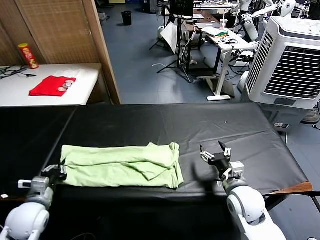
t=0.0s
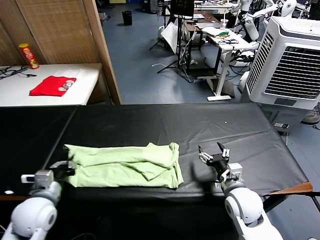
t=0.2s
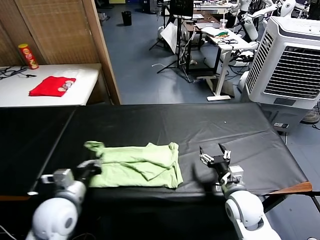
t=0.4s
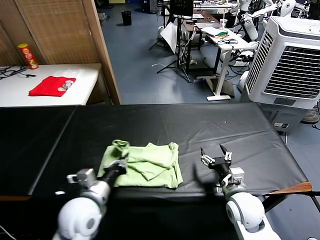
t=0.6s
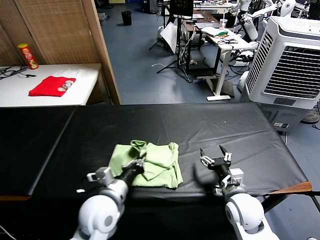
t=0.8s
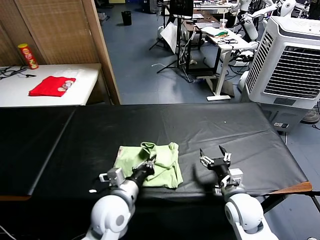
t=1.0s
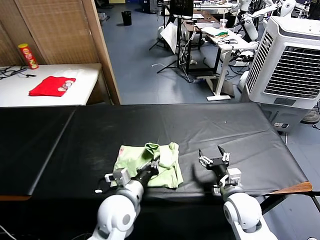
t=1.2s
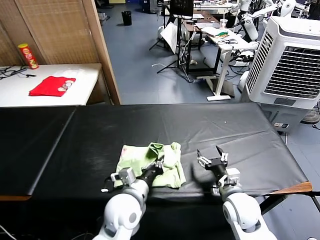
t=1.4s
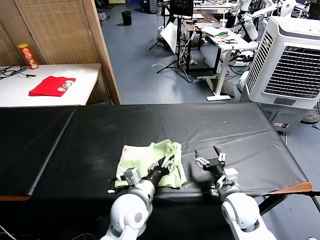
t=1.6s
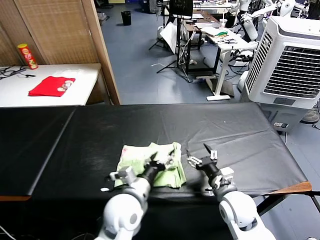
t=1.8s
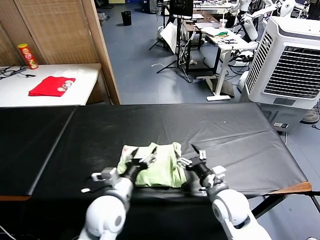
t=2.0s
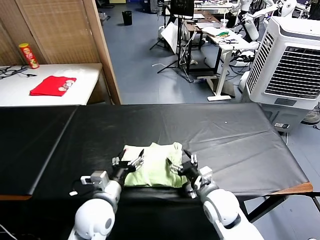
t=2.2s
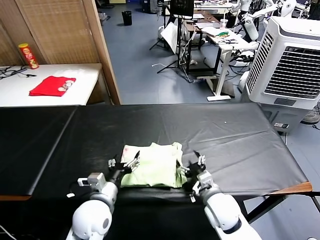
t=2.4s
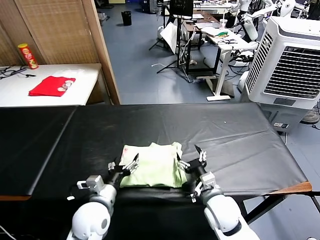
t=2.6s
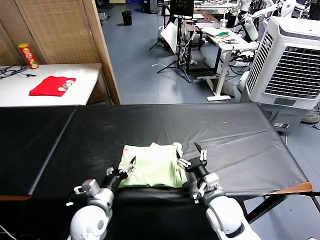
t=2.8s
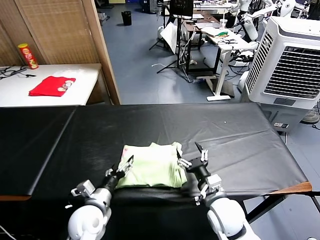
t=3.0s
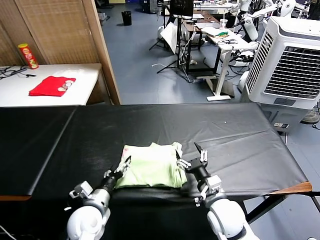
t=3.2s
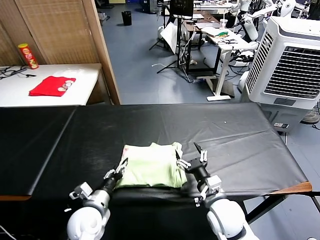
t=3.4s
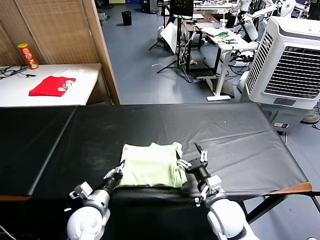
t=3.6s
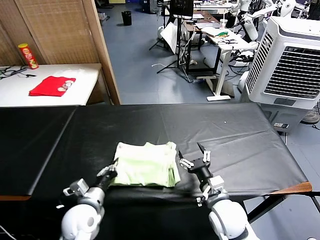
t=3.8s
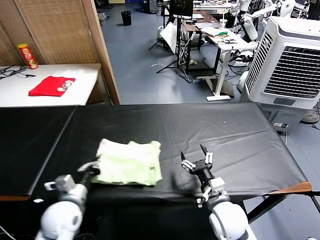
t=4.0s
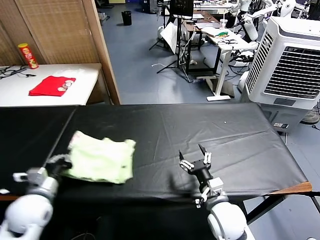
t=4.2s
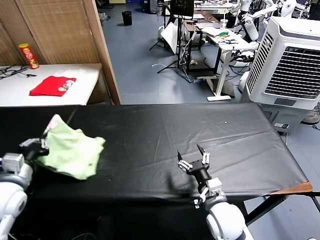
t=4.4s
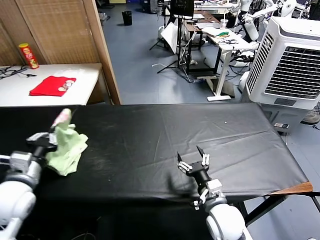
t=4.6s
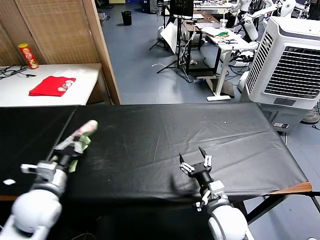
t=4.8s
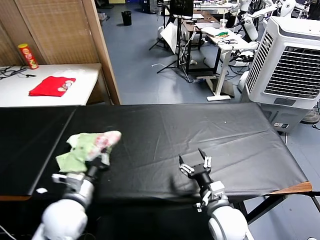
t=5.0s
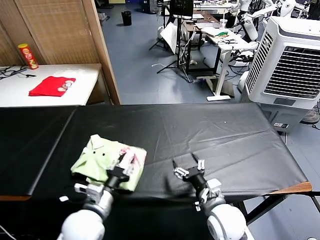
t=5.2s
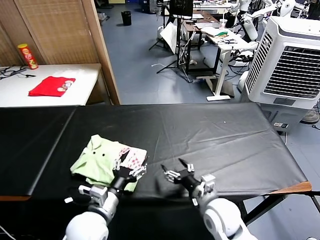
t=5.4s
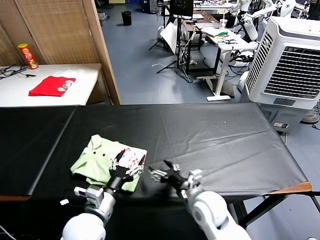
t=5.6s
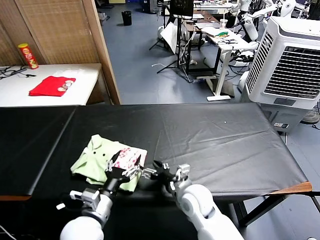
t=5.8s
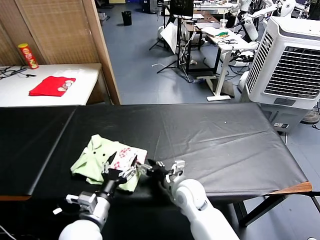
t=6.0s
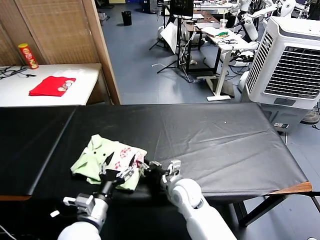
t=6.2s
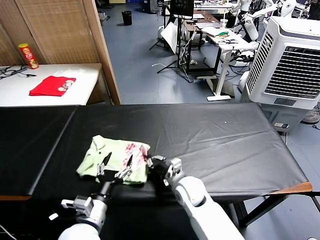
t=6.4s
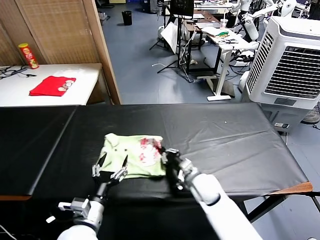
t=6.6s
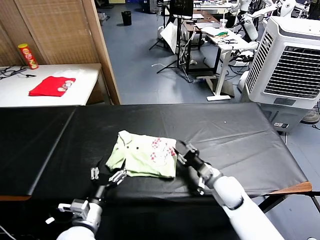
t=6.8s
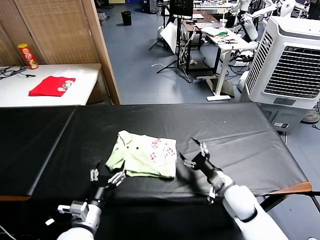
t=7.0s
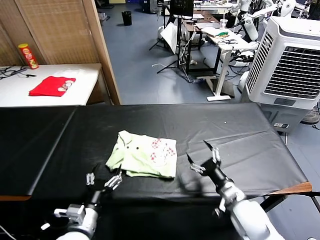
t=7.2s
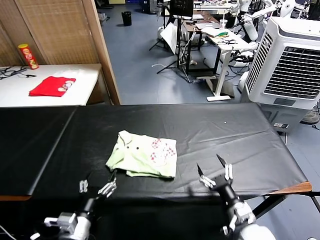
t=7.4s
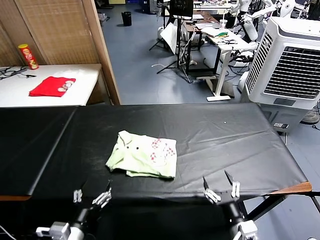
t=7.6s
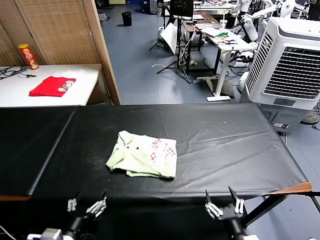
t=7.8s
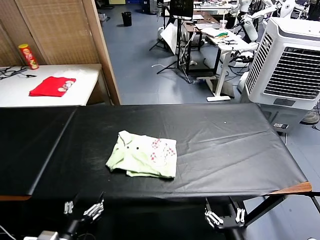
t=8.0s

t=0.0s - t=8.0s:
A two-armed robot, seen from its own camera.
Task of the whole recording: fold and organize the clothes.
Step, t=0.0s - t=1.6s: use the left gripper to drag the left edge of the fabric to the left and folds it over the right edge.
Step, t=2.0s - t=5.2s: Flip the folded clothes over with left gripper.
Step, t=5.4s - t=6.8s: Drag the clothes to the center of the table.
t=0.0s - t=1.6s: The left gripper shifts roughly 30 cm to the right, and opens.
t=1.6s - t=3.2s: The right gripper shifts roughly 5 cm to the left. Meanwhile the left gripper is displaced to the left and downward by roughly 15 cm, and opens.
t=3.2s - t=4.8s: The left gripper shifts about 15 cm upward and to the left, and closes its fingers.
t=4.8s - t=6.4s: The left gripper is displaced to the right, downward and backward by some 15 cm, and opens. The right gripper shifts approximately 15 cm forward and to the left, and closes up.
t=6.4s - t=8.0s: The right gripper goes about 30 cm backward and to the right, and opens up, while the left gripper goes some 10 cm backward and to the left.

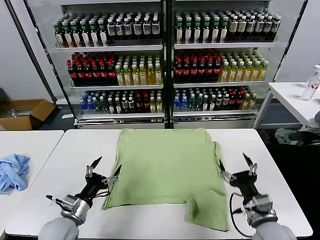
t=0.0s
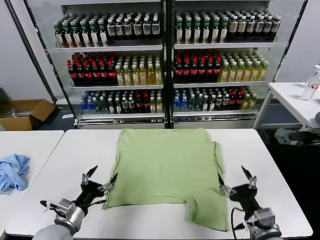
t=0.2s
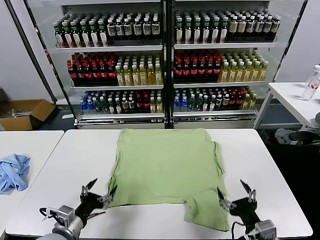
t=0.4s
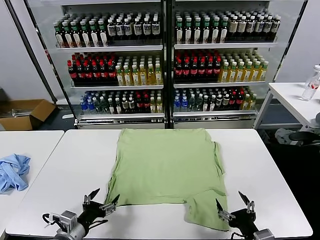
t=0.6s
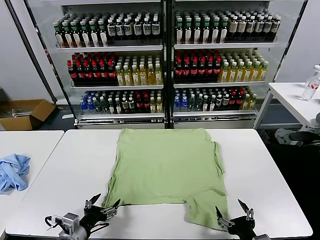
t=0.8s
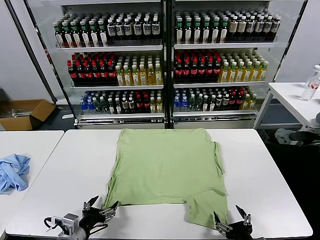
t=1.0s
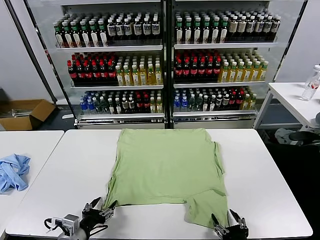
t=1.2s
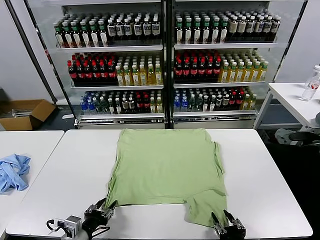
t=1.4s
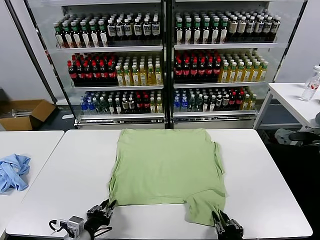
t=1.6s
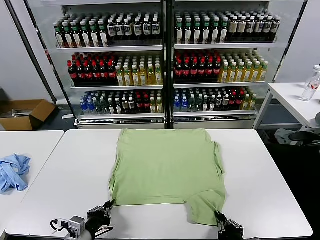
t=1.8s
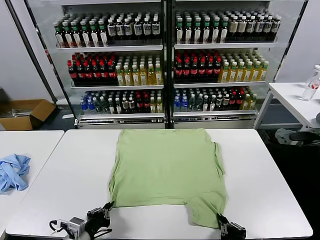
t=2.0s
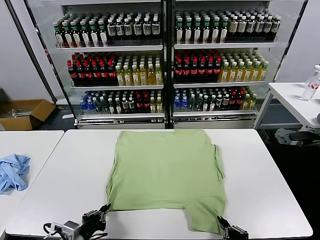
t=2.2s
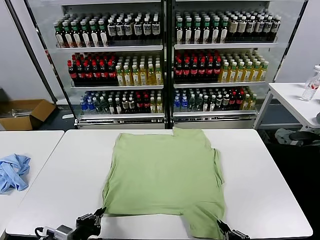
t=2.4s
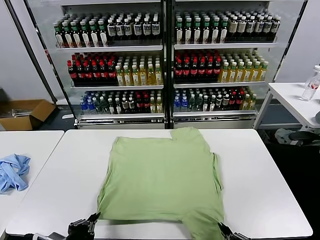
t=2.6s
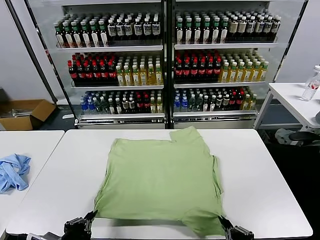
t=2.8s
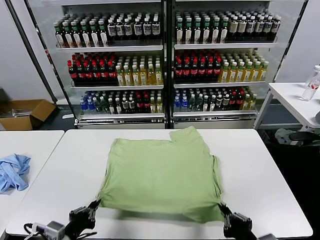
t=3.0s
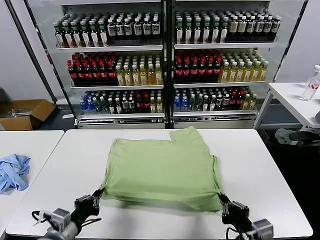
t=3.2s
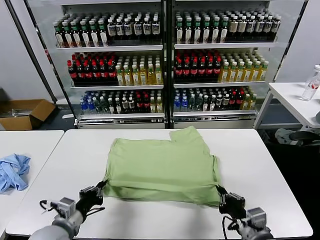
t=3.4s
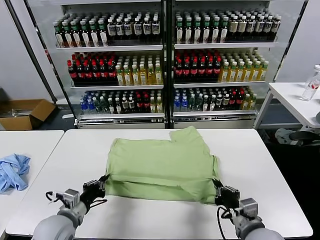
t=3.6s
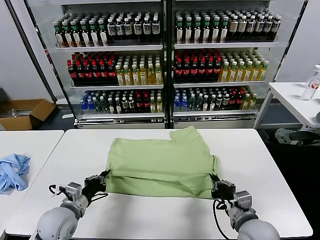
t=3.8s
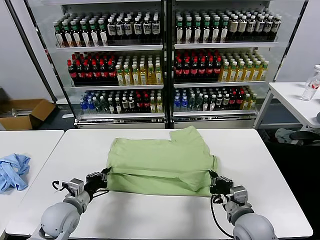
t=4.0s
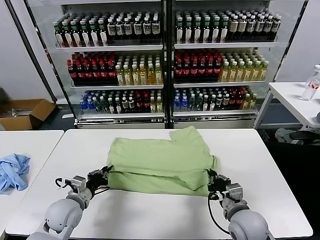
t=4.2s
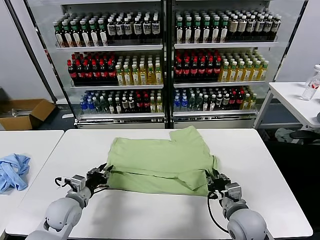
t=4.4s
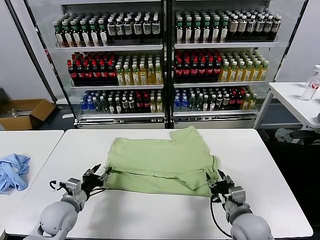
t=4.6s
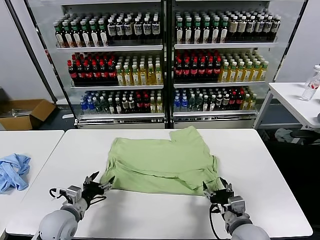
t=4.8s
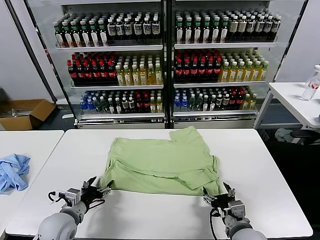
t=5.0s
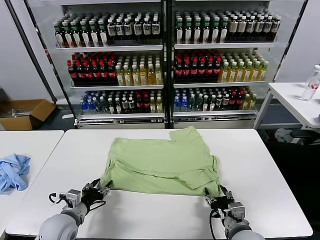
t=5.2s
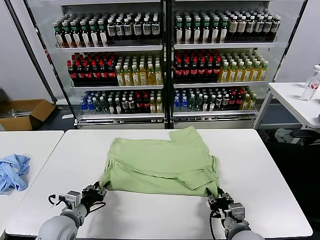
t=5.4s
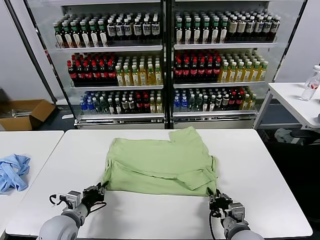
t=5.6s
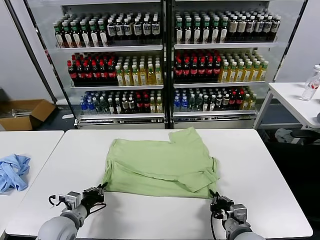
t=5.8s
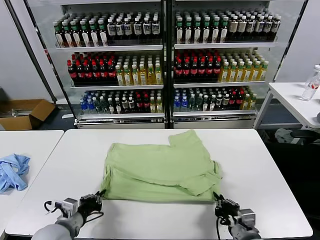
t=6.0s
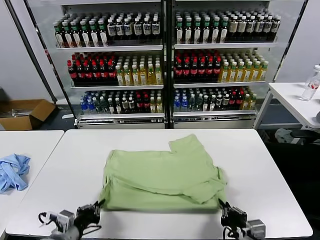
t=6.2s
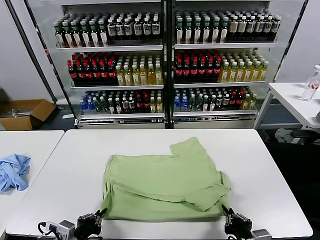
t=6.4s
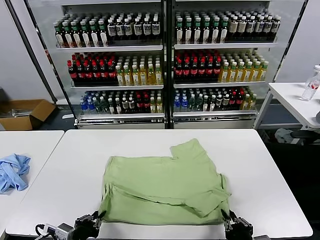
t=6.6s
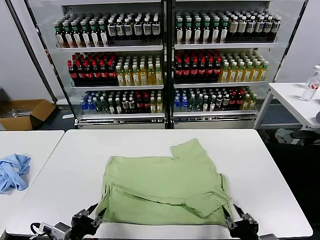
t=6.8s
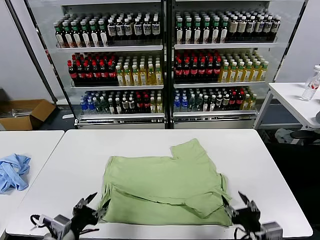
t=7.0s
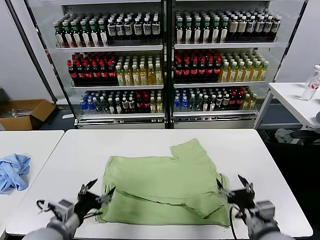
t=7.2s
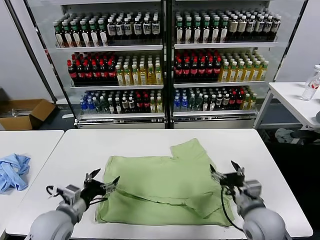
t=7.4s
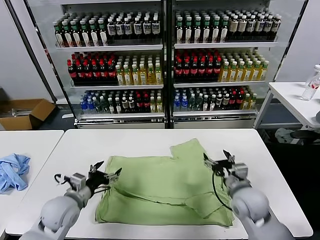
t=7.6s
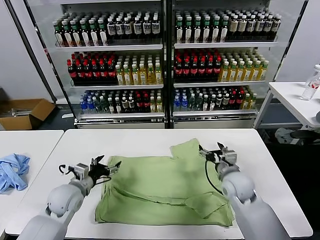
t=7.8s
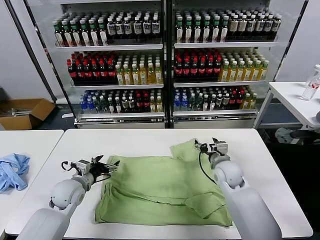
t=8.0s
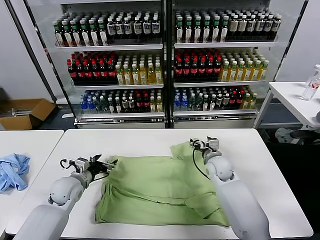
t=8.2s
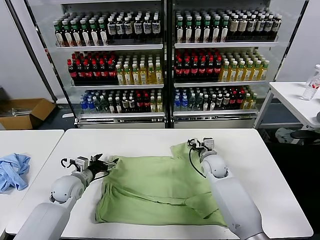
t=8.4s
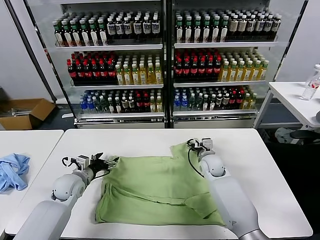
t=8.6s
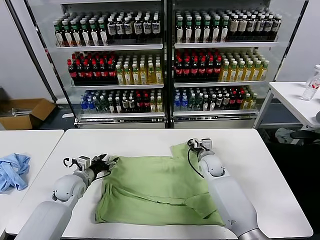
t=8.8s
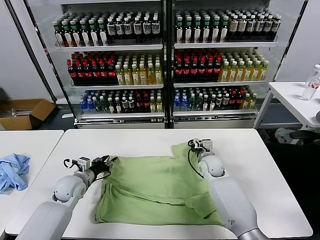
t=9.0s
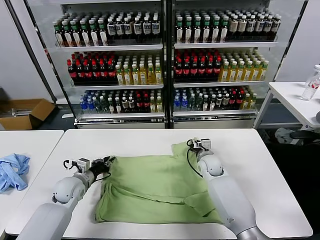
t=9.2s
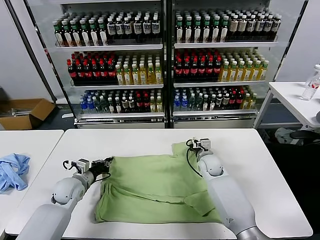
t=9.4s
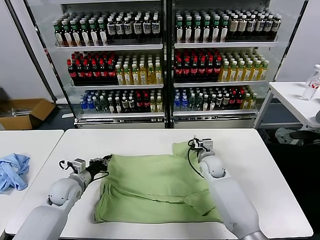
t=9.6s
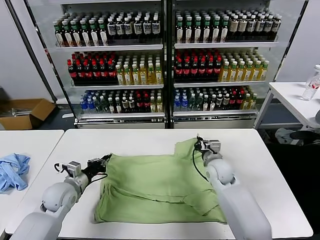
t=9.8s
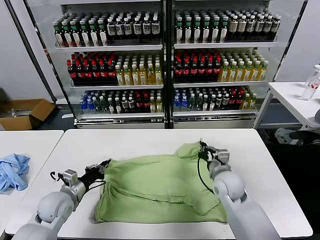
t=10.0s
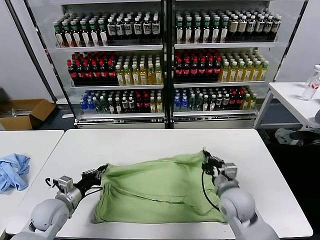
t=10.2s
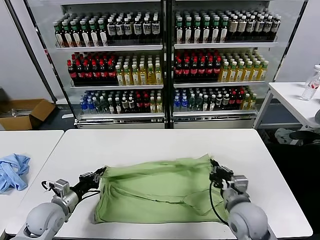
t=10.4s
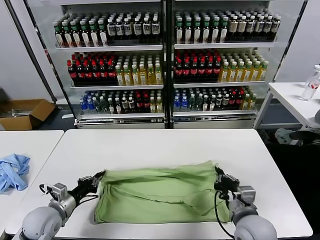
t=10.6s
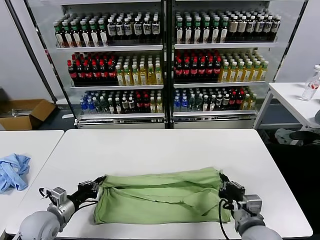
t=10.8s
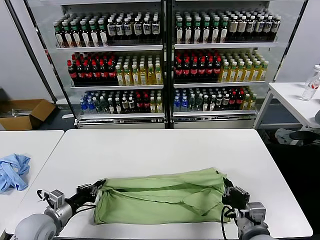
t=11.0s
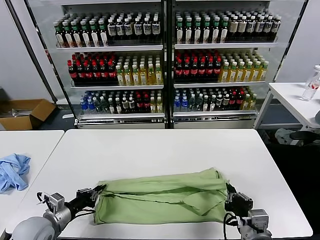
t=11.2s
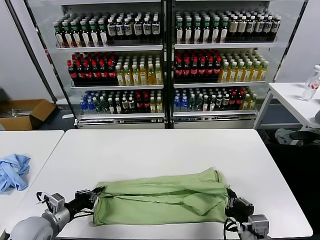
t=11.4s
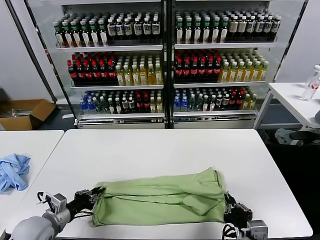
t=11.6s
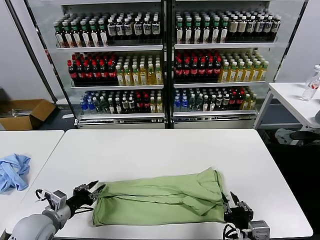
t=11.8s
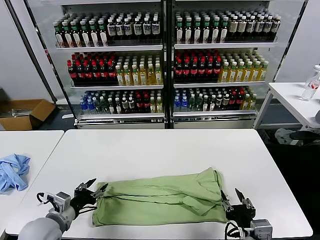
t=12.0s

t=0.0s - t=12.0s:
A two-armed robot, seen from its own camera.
Task of the whole recording: fold and organize the clothes.
Step, t=0.0s - t=1.8s: use both grippers simultaneously to clamp the lower edge of the clothing fabric.
Step, t=2.0s - t=4.2s: use both grippers to drag the lower edge of the fabric forward and fold it over the upper edge.
Step, t=4.4s - t=6.6s: Drag the clothes downward with both gripper.
Step, t=6.8s - t=9.4s: use both grippers simultaneously to clamp the upper edge of the clothing fabric.
Step, t=9.6s - t=11.8s: use both grippers to drag the upper edge of the fabric backward and fold it over the lower edge.
t=1.6s - t=3.0s: The grippers both shift upward by some 10 cm.
t=3.0s - t=4.4s: The right gripper shifts some 15 cm forward and downward, and opens. The left gripper goes about 15 cm forward, and opens its fingers.
t=4.4s - t=6.0s: The two grippers go roughly 10 cm backward. The right gripper closes, while the left gripper opens, then closes once more.
t=6.0s - t=7.6s: The right gripper shifts some 20 cm forward, and opens up; the left gripper goes roughly 5 cm forward, and opens.
t=7.6s - t=9.0s: The two grippers go some 15 cm forward and downward. The right gripper closes its fingers. Meanwhile the left gripper closes up.
t=9.0s - t=10.4s: The left gripper heads backward, covering about 10 cm, and closes. The right gripper moves backward, about 25 cm, and closes its fingers.
t=10.4s - t=12.0s: The right gripper heads backward, covering roughly 10 cm, and opens up; the left gripper heads backward, covering some 5 cm, and opens up.

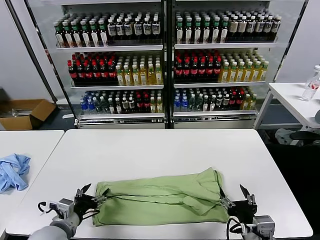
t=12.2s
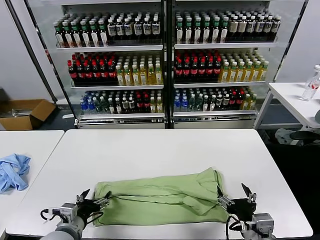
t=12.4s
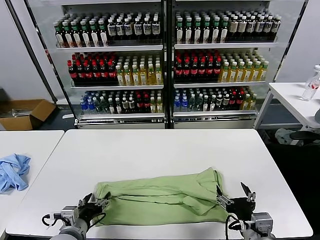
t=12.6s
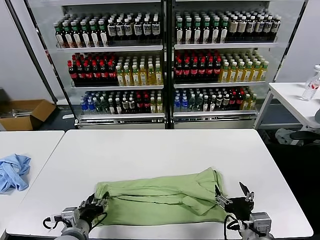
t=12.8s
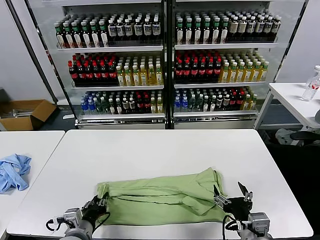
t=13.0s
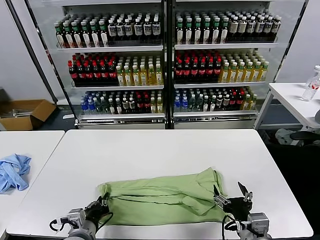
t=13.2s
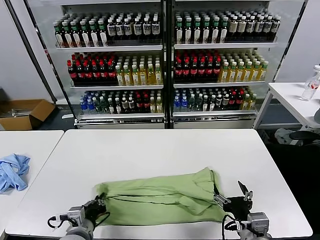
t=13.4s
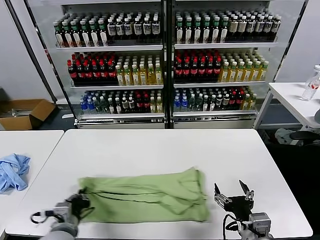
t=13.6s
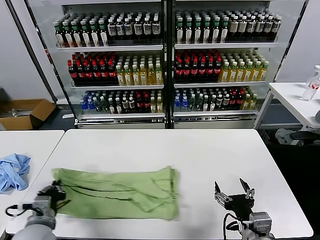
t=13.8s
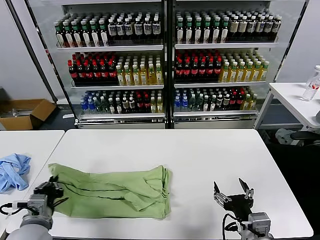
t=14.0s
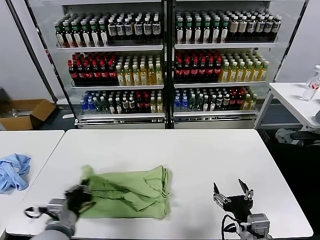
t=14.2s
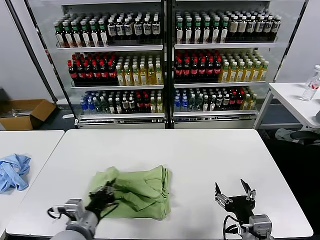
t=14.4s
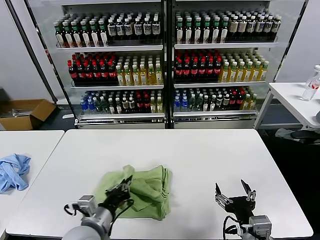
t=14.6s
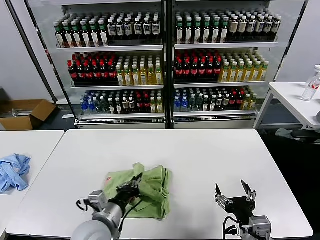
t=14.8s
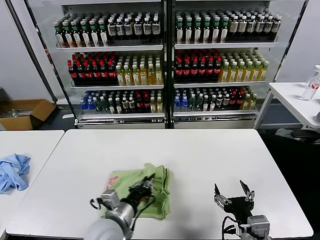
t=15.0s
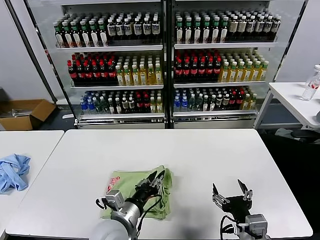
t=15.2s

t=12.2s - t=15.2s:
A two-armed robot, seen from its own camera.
Task of the whole recording: fold and organize the clothes.
Step, t=12.2s - t=13.2s: use the left gripper to clamp the left edge of the fabric.
Step, t=13.4s - t=15.2s: use the left gripper to drag the left edge of the fabric to the left and folds it over the right edge.
t=12.2s - t=13.8s: The left gripper goes to the right and returns, roughly 5 cm each way, and closes its fingers.
t=13.8s - t=15.2s: The left gripper goes approximately 20 cm to the right.
